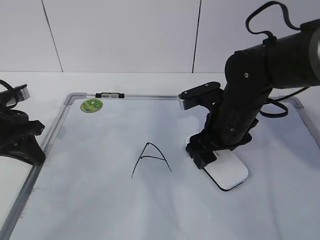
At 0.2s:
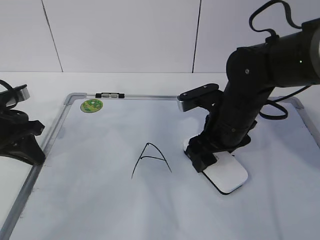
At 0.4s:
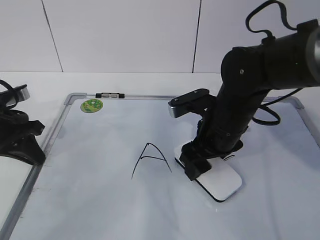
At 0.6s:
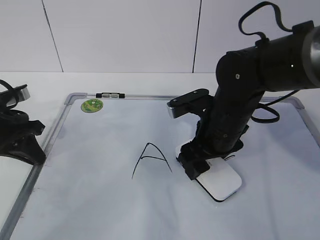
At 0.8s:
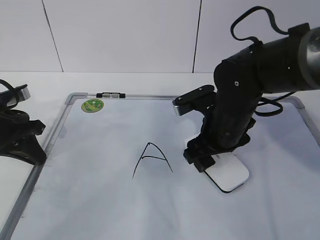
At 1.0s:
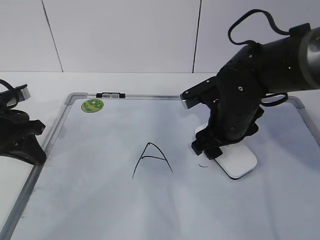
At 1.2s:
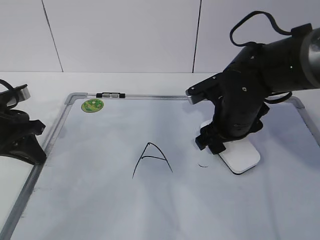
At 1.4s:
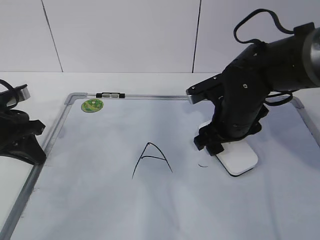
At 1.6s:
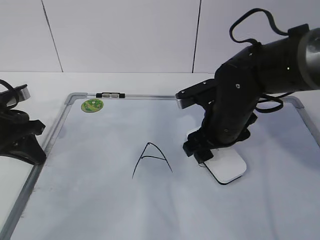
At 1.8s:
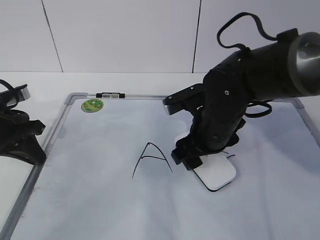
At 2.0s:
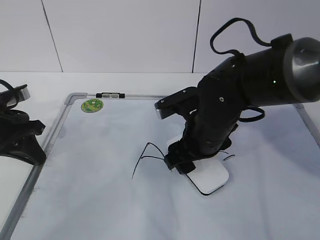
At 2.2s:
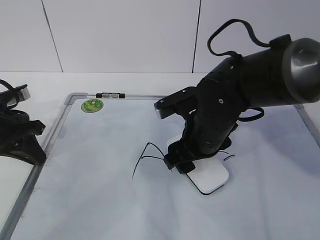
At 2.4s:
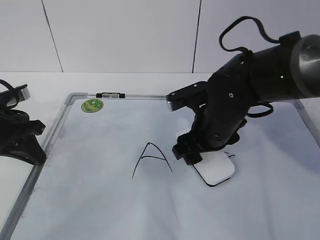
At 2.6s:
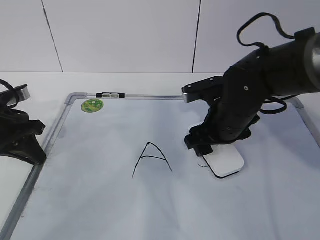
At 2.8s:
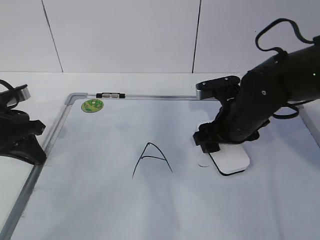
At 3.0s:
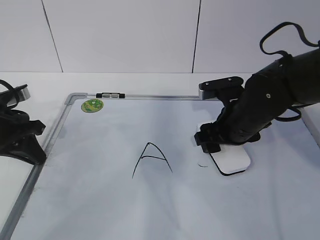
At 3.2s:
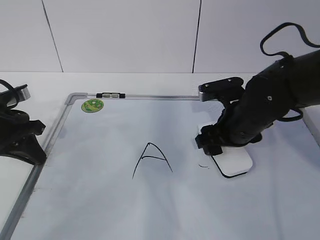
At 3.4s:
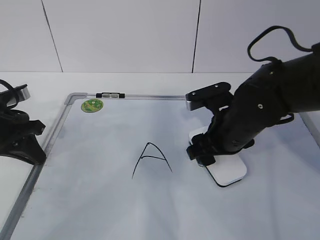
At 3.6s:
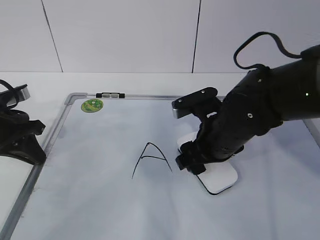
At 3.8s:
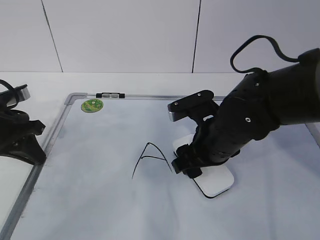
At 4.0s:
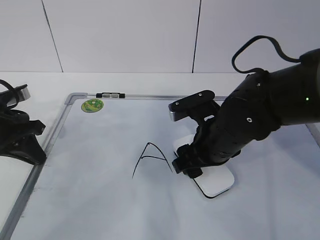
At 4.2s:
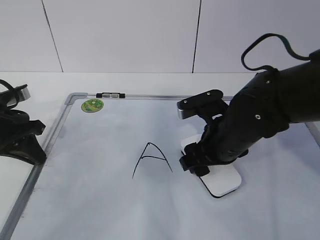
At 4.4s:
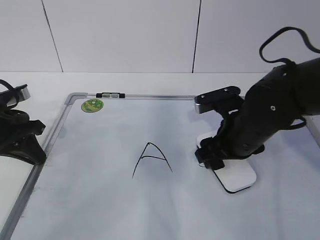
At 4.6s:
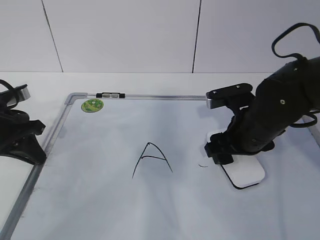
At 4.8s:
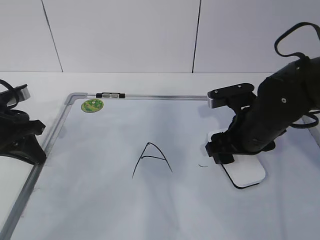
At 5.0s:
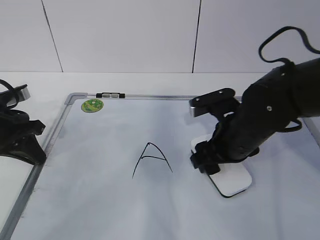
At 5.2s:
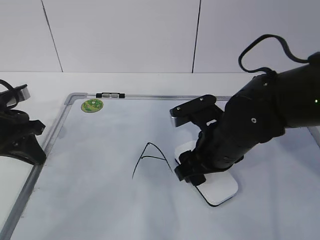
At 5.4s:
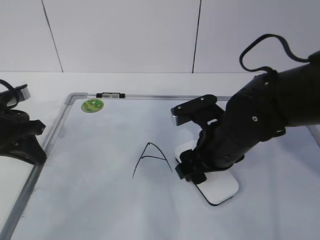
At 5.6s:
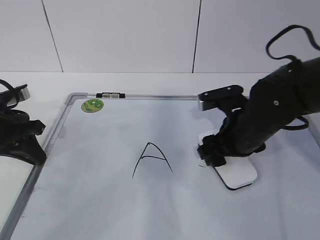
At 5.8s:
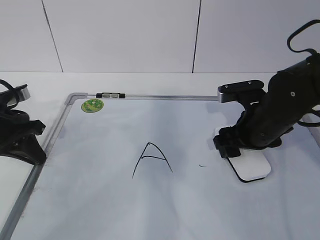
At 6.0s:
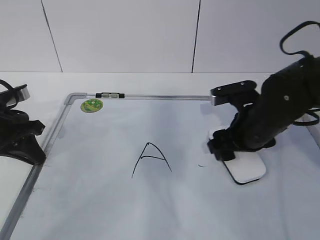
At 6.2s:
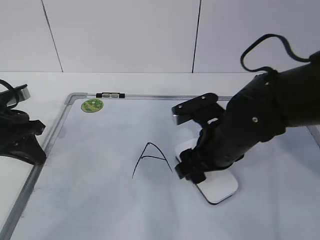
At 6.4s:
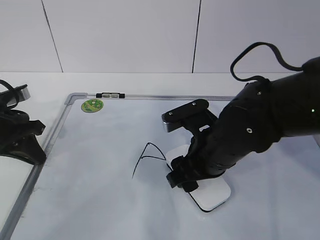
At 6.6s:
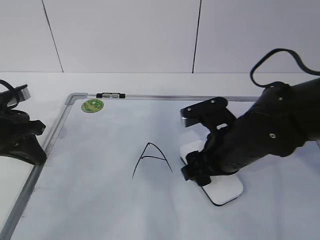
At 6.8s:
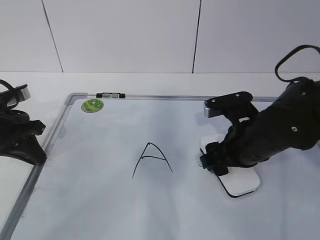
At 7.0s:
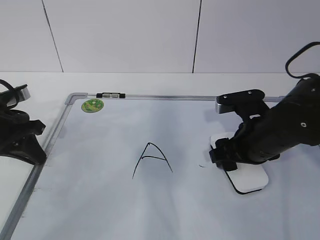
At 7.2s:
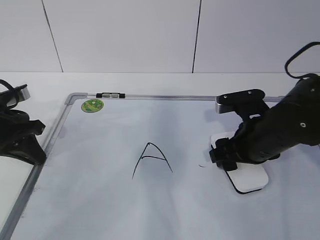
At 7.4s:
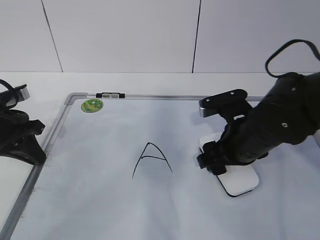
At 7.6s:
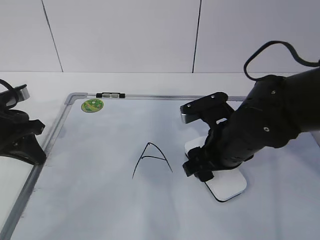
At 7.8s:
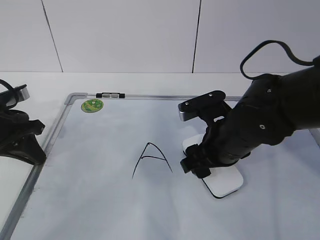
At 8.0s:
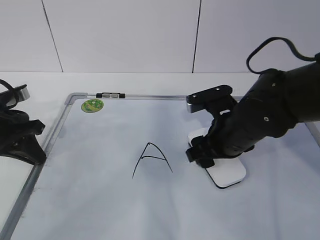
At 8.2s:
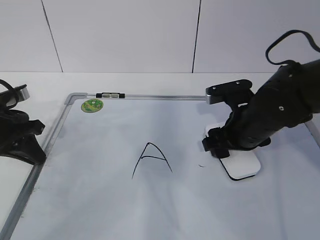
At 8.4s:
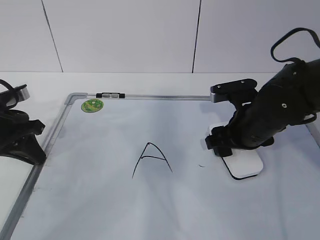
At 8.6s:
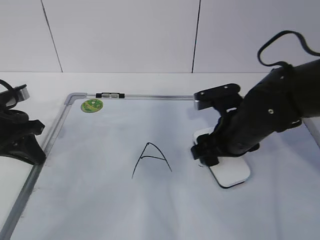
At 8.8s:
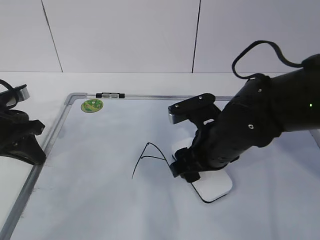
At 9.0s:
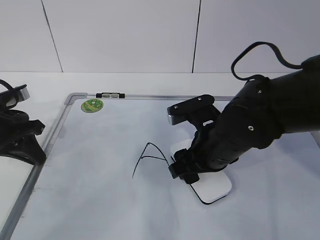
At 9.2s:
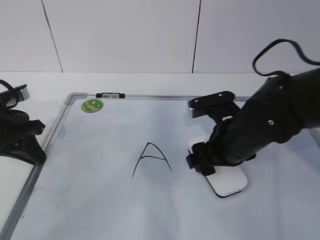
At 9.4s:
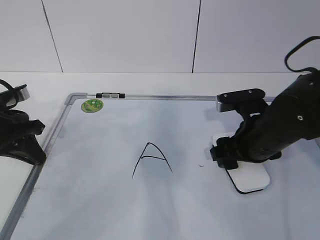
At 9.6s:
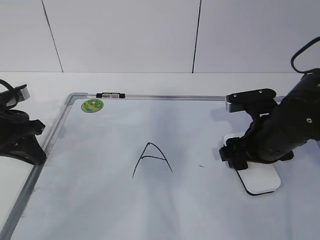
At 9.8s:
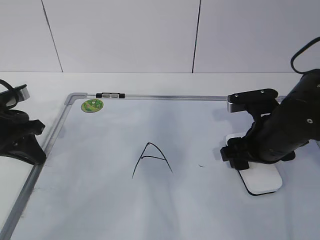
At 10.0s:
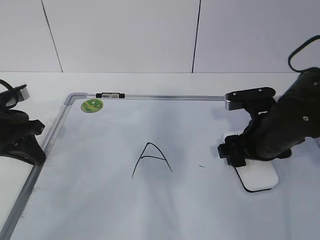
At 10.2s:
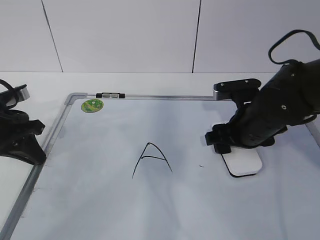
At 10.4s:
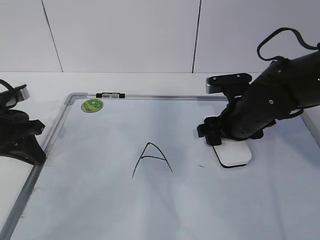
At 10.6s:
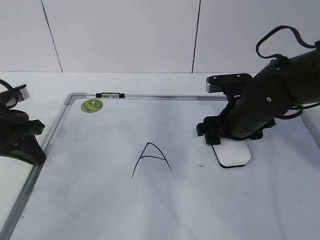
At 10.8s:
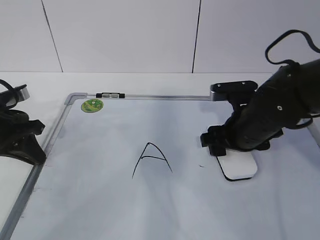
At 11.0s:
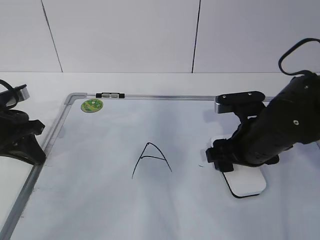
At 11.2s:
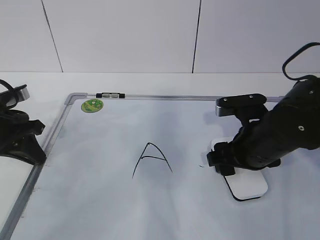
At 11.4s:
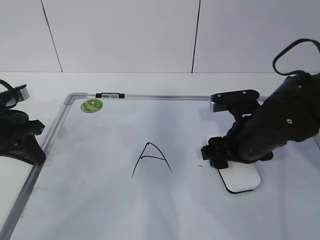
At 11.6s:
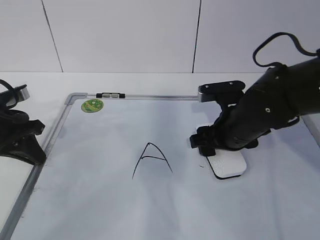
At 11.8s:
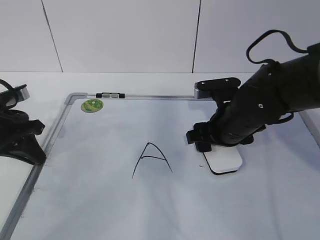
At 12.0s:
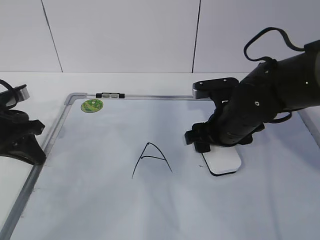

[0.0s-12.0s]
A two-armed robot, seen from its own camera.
Task of the whole recording: pick up the eraser on the blackboard and erase the letter "a".
Step, 0.0s to 7.2s: Erase the letter a with your right hand.
Step, 7.4s to 11.0s: Put down the eraser with your right hand.
0.0s to 3.0s: There are only small adjustments of the grippers.
4.4s to 6.0s: The grippers make only small movements.
6.0s to 7.6s: The right gripper moves left and right over approximately 10 cm, changing direction 2 times.
7.6s to 9.0s: The grippers make only small movements.
9.0s to 10.4s: The right gripper goes some 10 cm forward and to the right.
10.4s to 12.0s: The grippers make only small movements.

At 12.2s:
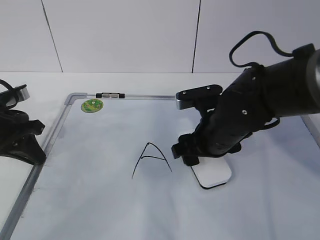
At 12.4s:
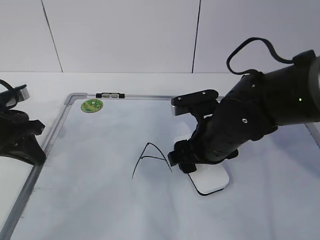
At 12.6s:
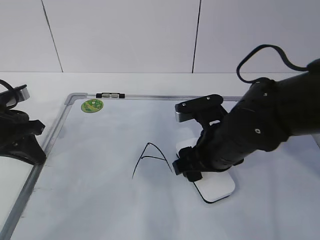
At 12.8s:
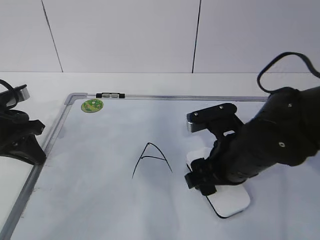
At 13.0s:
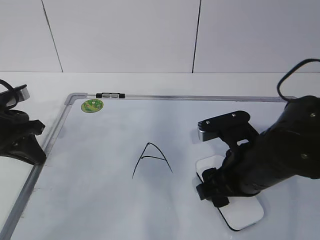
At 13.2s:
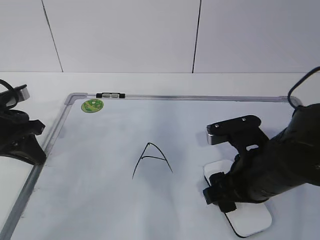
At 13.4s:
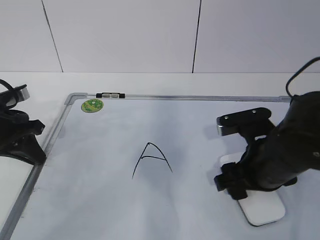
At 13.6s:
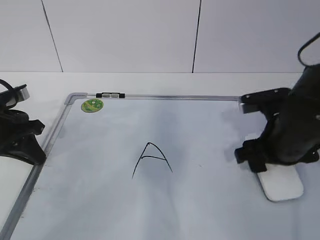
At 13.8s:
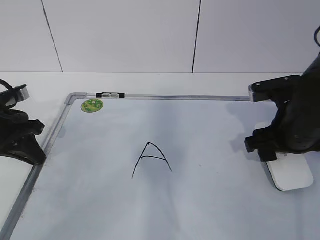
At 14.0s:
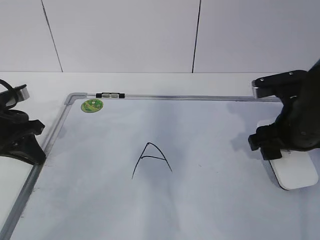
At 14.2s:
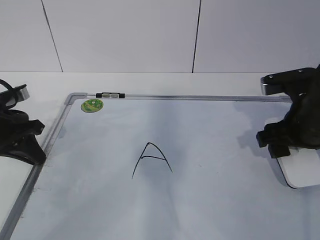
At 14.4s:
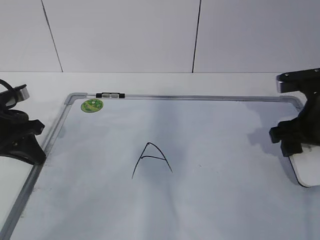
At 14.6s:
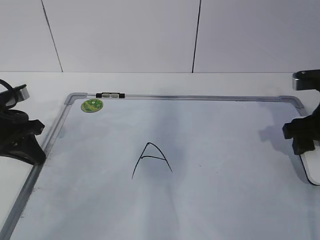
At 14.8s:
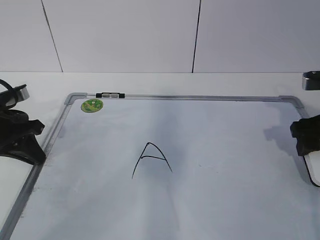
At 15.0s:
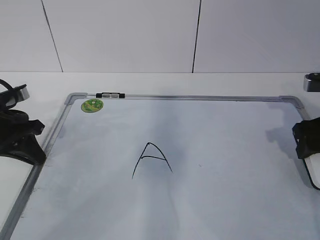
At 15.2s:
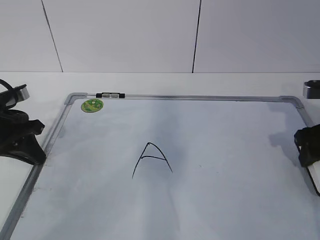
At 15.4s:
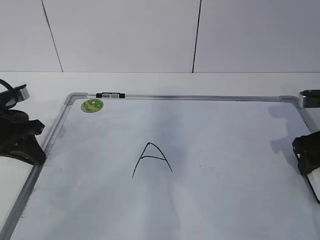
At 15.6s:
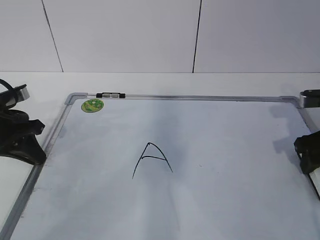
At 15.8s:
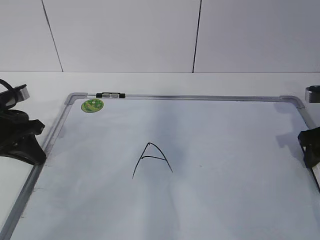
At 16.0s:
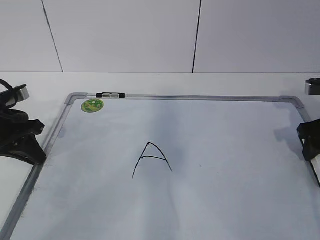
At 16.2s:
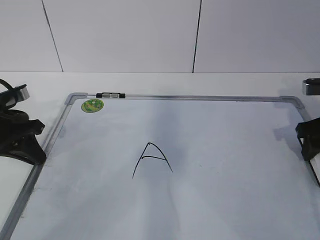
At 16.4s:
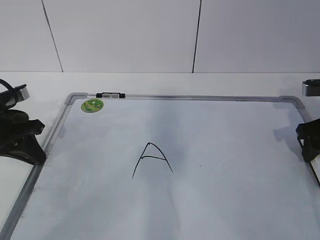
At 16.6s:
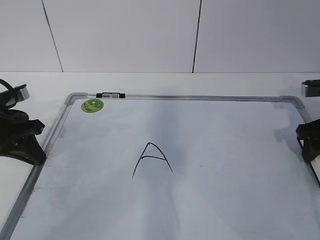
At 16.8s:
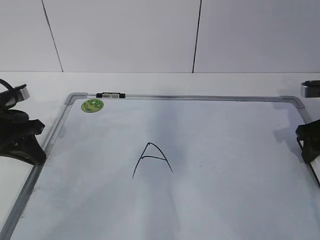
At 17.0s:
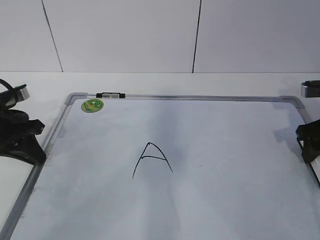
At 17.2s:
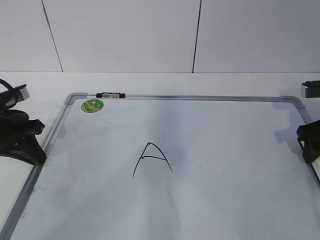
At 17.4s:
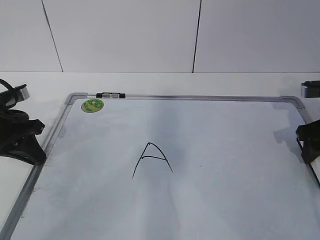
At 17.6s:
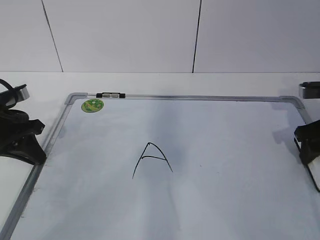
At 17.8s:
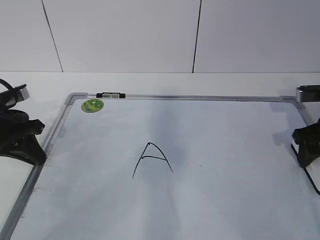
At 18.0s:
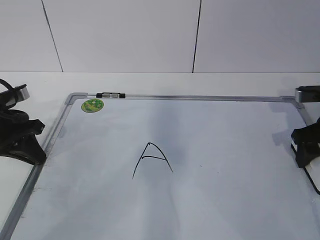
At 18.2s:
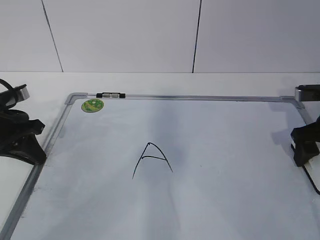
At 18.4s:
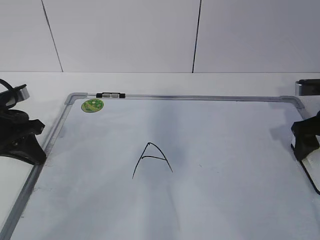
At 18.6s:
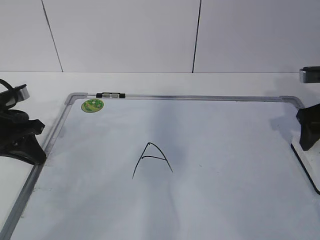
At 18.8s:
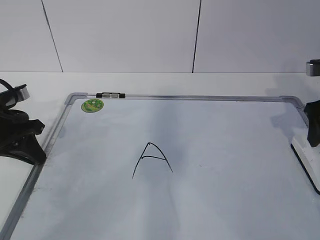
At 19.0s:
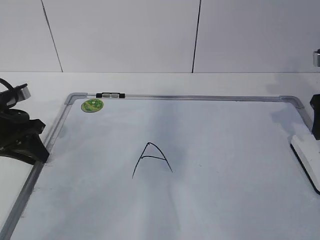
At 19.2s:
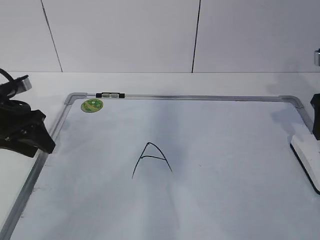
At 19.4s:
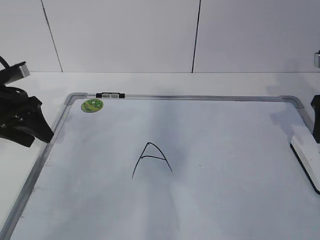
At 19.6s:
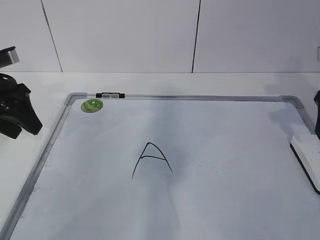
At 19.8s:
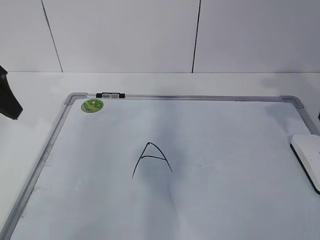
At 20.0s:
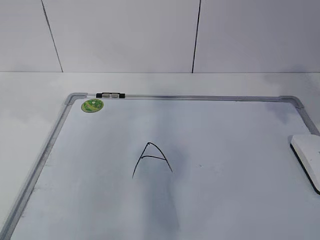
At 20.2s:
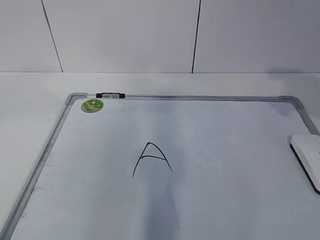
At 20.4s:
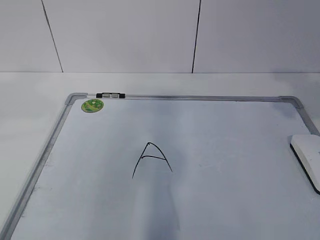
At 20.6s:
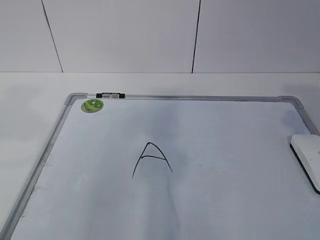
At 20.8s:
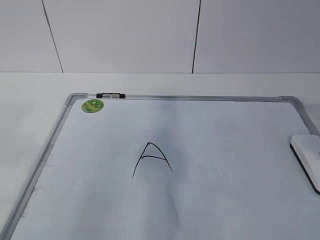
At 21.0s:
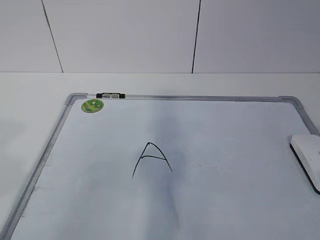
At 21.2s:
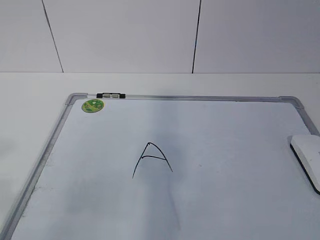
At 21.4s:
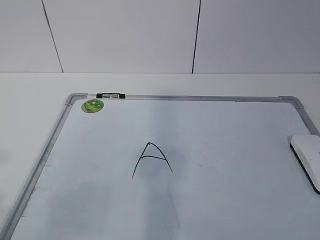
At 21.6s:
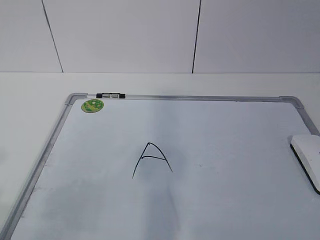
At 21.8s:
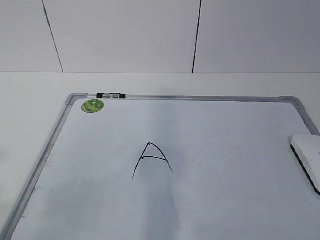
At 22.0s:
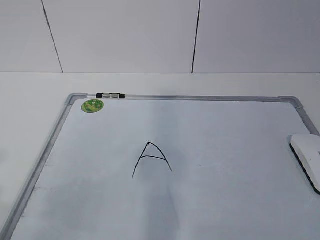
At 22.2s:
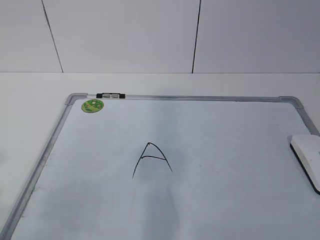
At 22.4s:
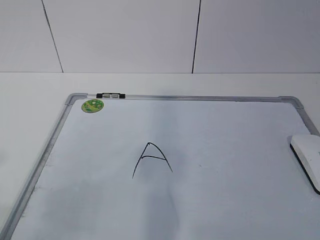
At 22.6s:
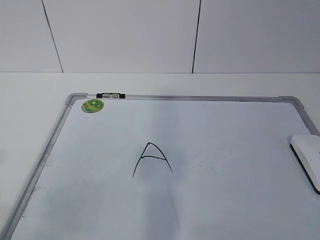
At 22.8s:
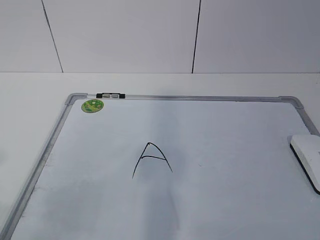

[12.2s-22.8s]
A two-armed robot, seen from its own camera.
Task of the whole recording: pick up the eraser on the blackboard and erase the letter "a".
12.2s to 13.8s: The right gripper shifts approximately 10 cm to the right.
13.8s to 15.2s: The right gripper travels to the right by about 10 cm.
15.2s to 16.8s: The grippers make only small movements.
16.8s to 18.2s: Both grippers stay about where they are.
18.2s to 19.8s: The grippers both shift upward by approximately 10 cm. The left gripper opens up.
19.8s to 21.2s: The left gripper travels backward by roughly 25 cm.
